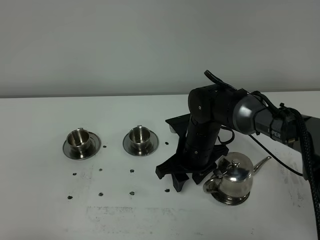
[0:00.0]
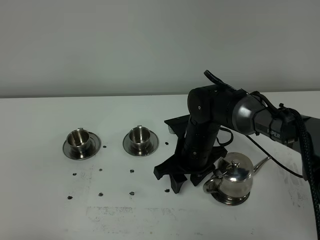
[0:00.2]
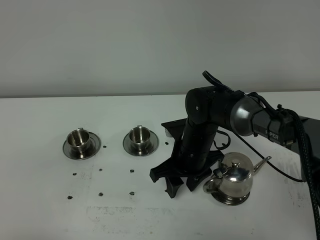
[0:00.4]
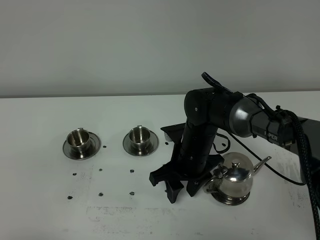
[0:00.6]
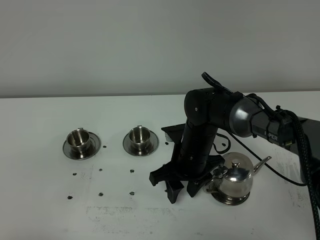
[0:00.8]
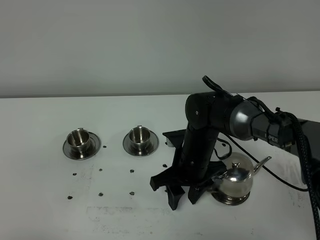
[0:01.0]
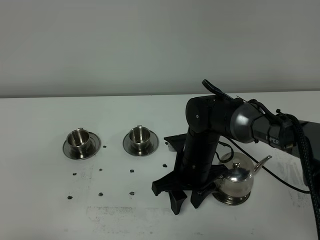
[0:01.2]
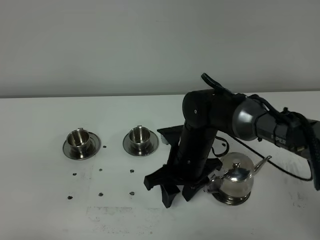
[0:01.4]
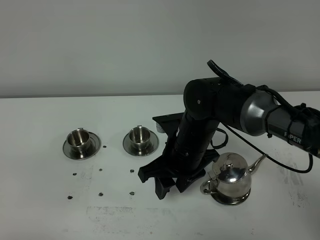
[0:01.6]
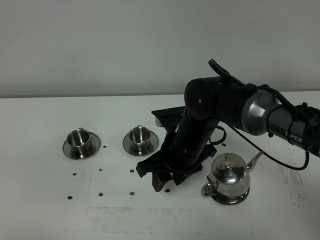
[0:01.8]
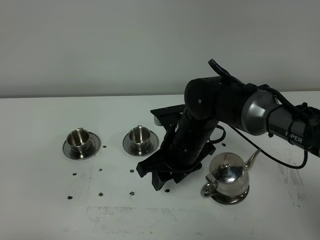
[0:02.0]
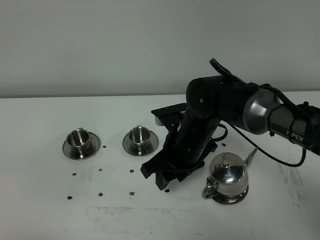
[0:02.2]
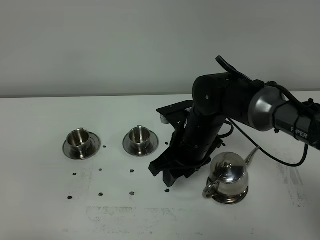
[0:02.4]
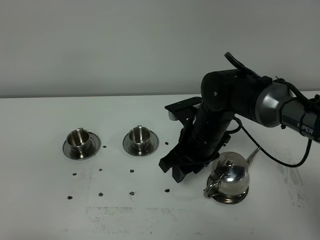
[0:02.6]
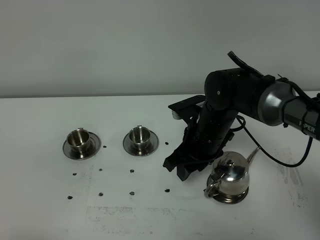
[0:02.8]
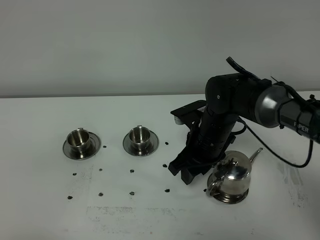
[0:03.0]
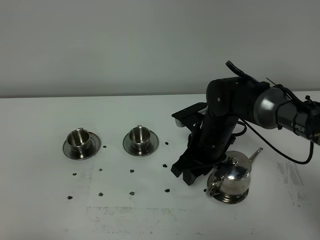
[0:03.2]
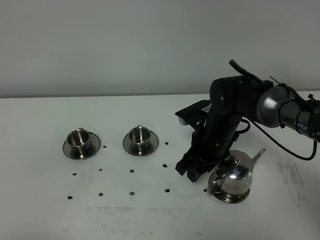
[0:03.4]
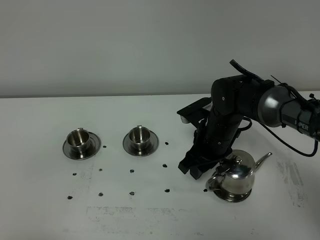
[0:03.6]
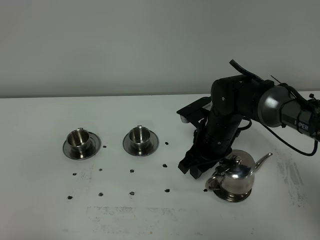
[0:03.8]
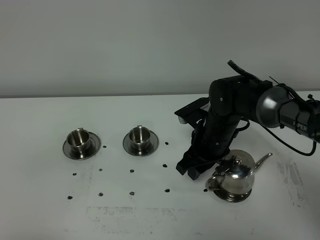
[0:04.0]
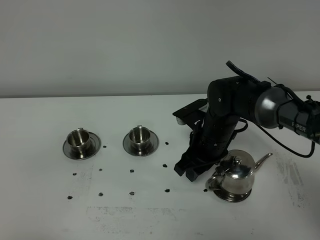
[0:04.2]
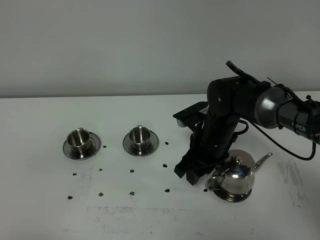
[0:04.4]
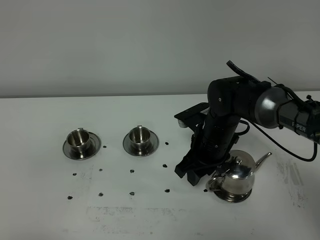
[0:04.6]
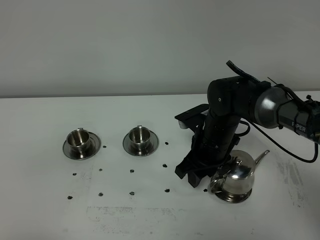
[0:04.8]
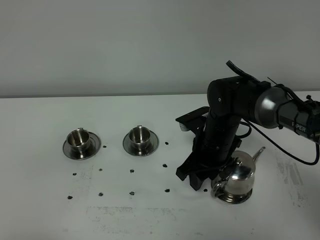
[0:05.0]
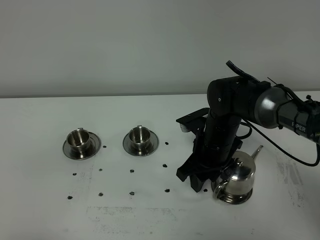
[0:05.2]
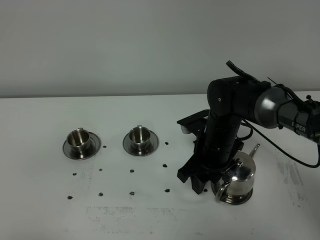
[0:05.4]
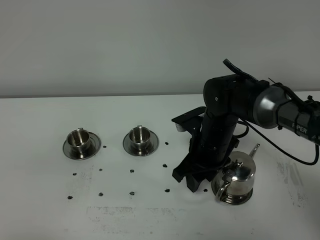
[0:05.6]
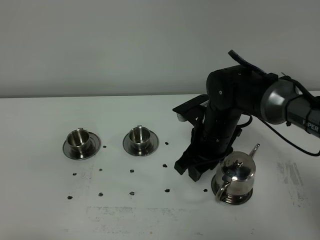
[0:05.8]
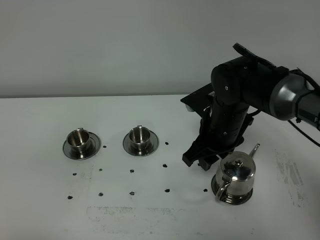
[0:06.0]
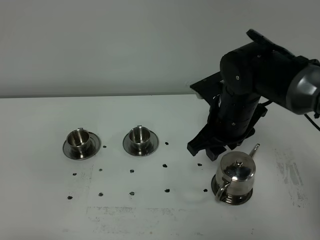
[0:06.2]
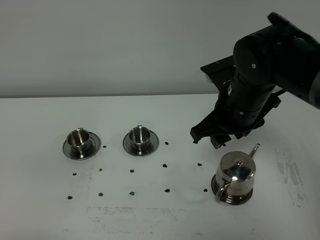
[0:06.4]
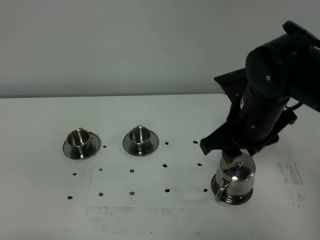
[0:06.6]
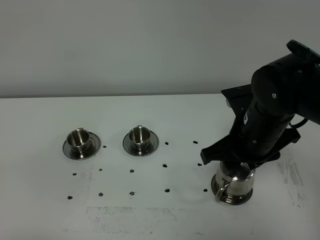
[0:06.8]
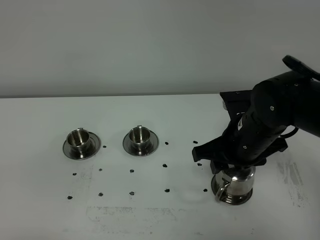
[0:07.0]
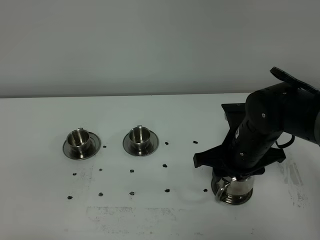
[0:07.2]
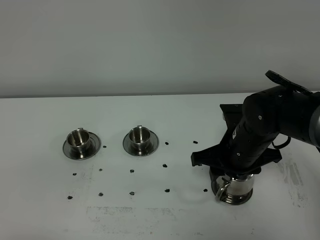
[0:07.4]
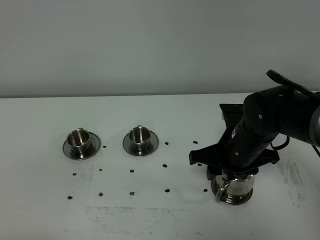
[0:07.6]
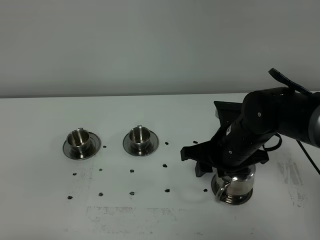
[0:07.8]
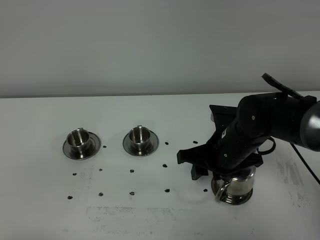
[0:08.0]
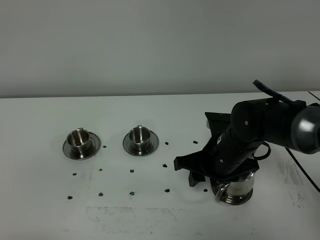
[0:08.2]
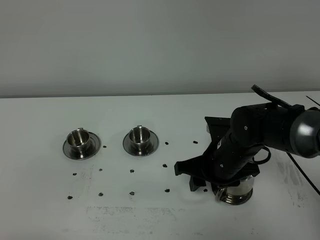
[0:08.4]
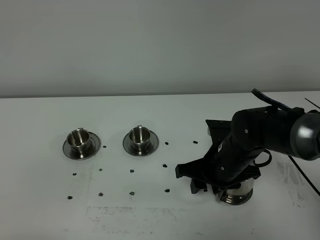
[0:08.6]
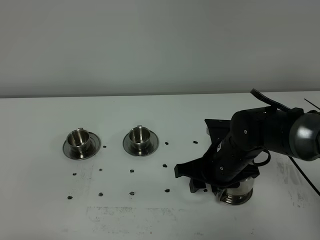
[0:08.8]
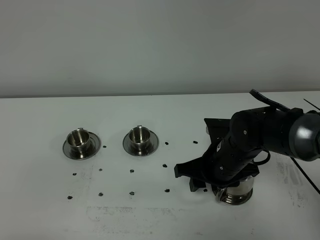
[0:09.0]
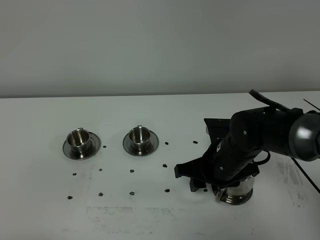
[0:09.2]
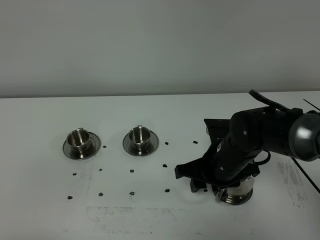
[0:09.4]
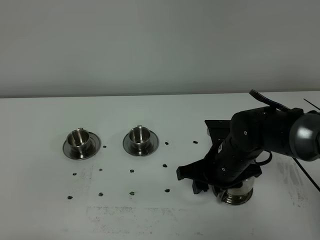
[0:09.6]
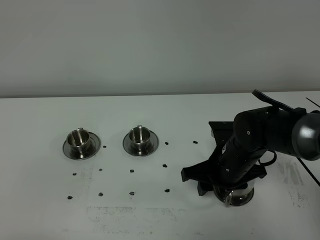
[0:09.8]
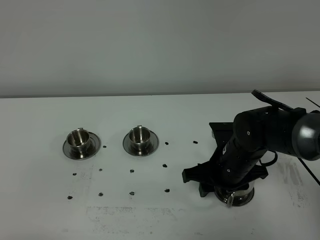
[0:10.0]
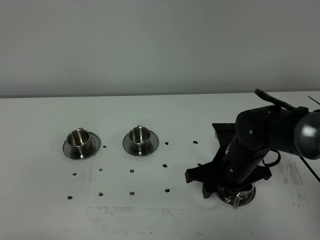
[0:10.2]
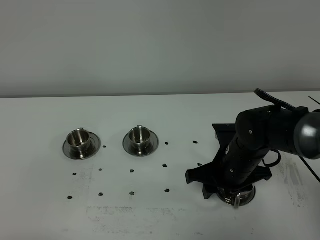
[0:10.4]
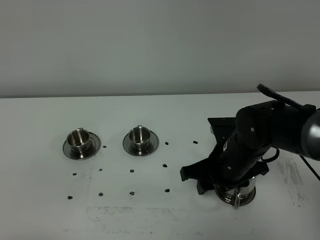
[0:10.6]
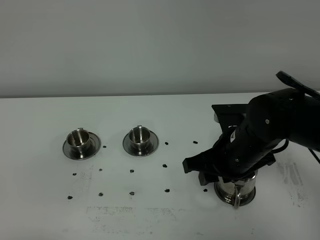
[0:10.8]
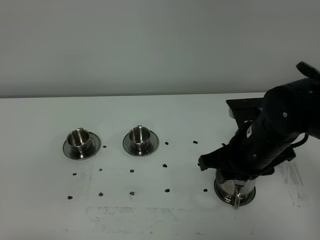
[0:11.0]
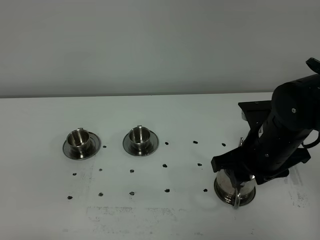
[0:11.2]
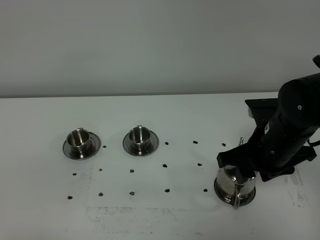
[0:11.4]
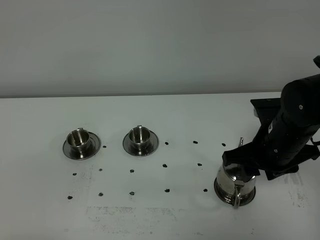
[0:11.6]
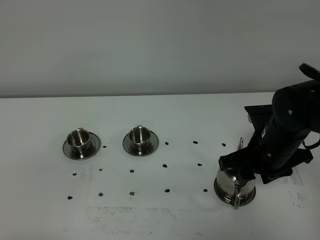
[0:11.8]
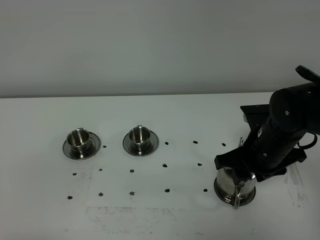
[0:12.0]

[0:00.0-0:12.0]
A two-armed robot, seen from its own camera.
Task of the whole recording: grasp the stainless steel teapot and pour the tea into the two stainless steel teacups one by one, put the stainless steel teapot back in its original place.
0:00.0 to 0:01.6: The right gripper changes place by approximately 5 cm.
0:01.6 to 0:03.0: The right gripper moves approximately 5 cm.
0:03.0 to 0:04.4: The grippers stay close to where they were, moving slightly.
0:04.4 to 0:06.0: The right gripper moves upward, some 5 cm.
0:06.0 to 0:07.6: The right gripper moves roughly 5 cm upward and comes back.
0:07.6 to 0:10.4: The grippers stay close to where they were, moving slightly.
0:10.4 to 0:12.0: The right gripper moves approximately 5 cm.

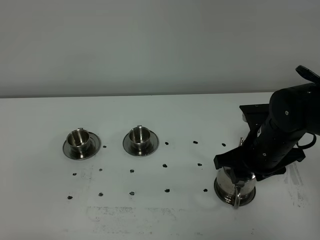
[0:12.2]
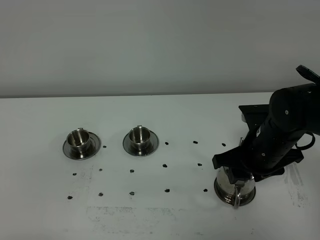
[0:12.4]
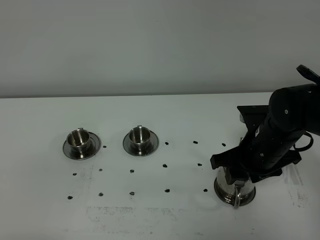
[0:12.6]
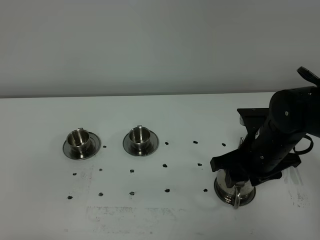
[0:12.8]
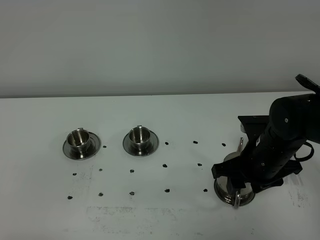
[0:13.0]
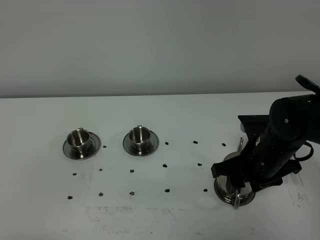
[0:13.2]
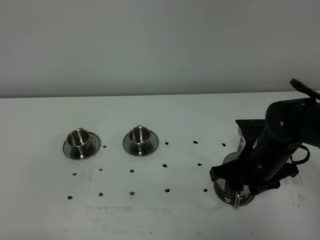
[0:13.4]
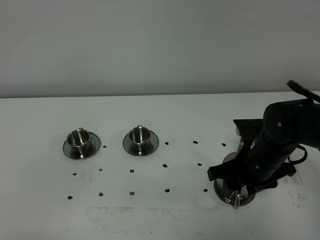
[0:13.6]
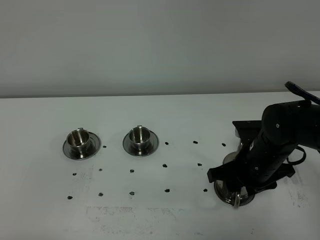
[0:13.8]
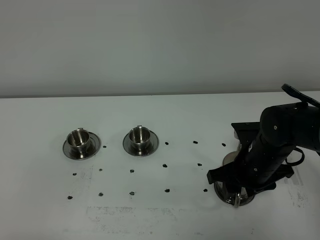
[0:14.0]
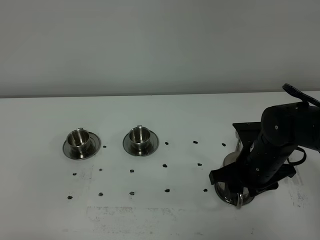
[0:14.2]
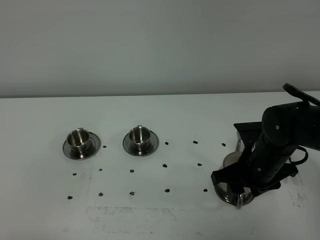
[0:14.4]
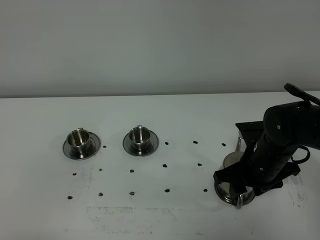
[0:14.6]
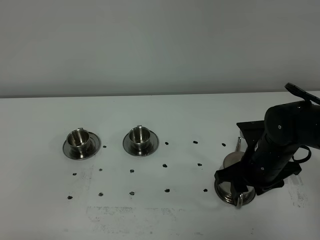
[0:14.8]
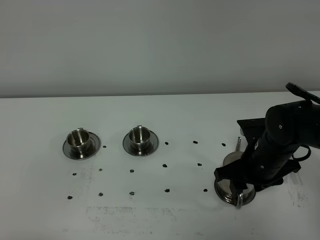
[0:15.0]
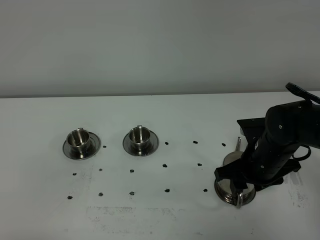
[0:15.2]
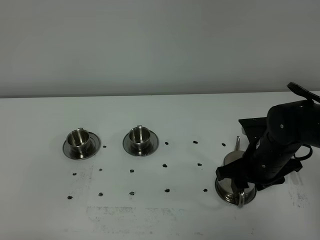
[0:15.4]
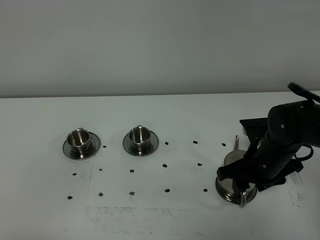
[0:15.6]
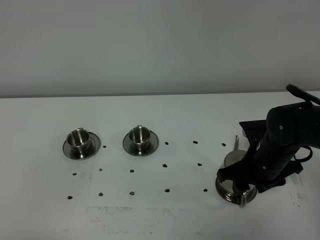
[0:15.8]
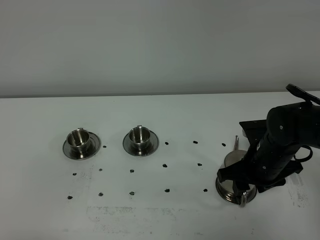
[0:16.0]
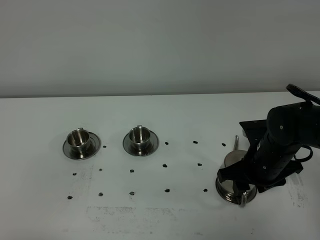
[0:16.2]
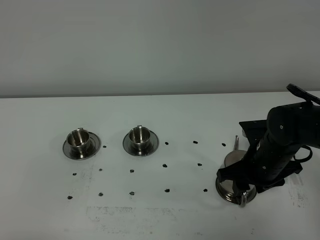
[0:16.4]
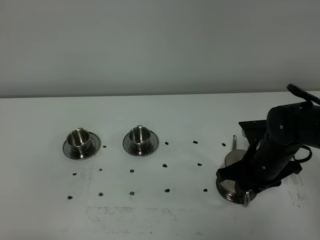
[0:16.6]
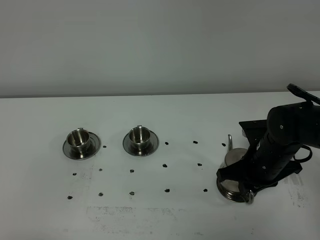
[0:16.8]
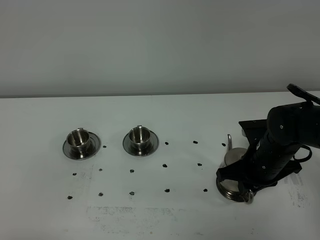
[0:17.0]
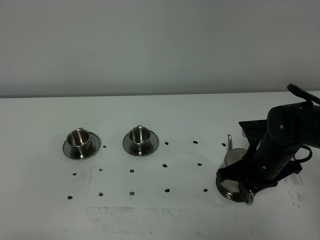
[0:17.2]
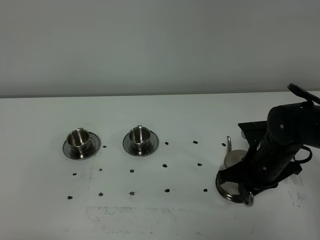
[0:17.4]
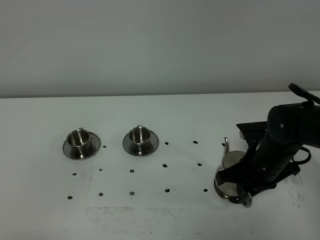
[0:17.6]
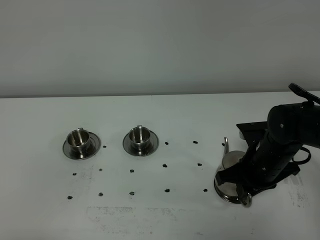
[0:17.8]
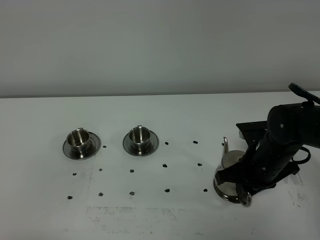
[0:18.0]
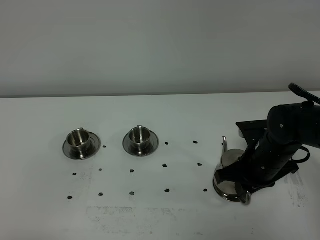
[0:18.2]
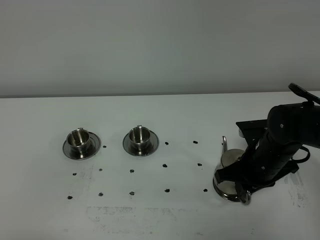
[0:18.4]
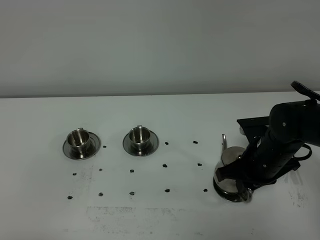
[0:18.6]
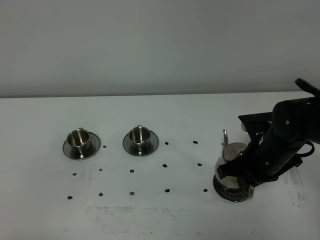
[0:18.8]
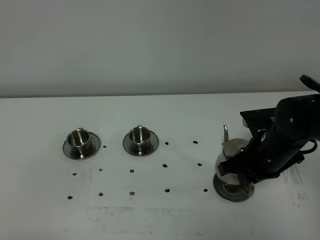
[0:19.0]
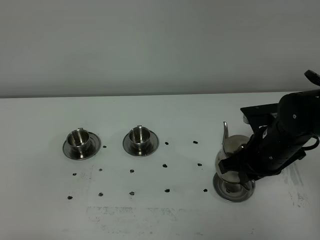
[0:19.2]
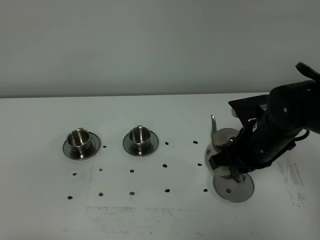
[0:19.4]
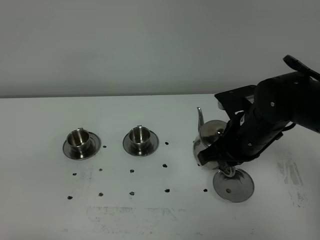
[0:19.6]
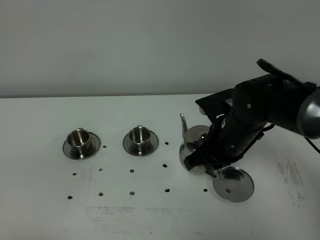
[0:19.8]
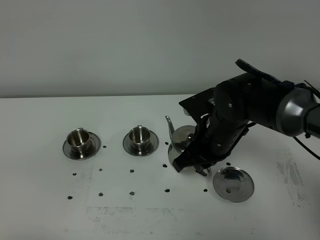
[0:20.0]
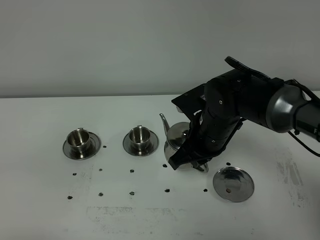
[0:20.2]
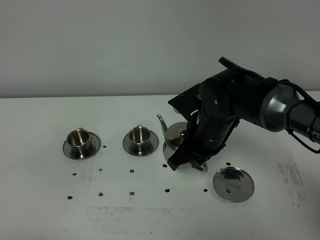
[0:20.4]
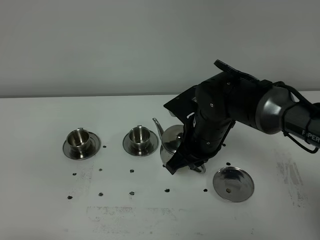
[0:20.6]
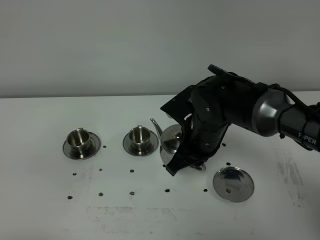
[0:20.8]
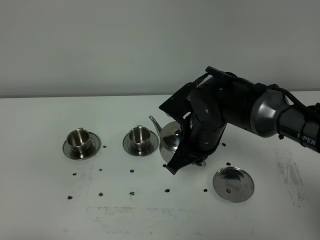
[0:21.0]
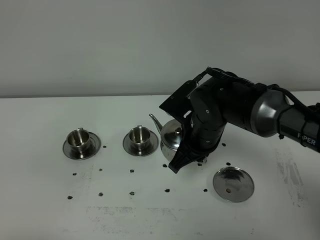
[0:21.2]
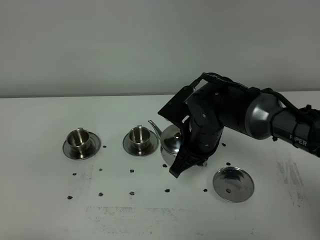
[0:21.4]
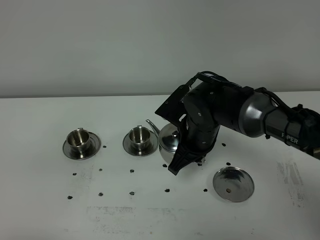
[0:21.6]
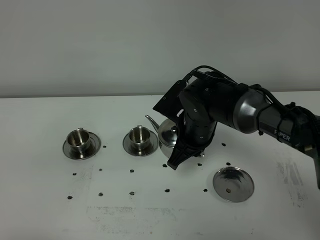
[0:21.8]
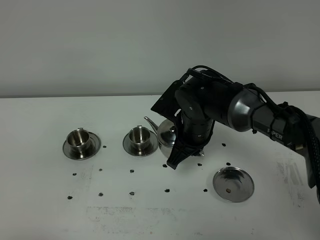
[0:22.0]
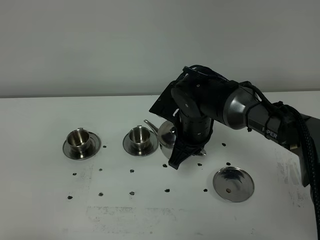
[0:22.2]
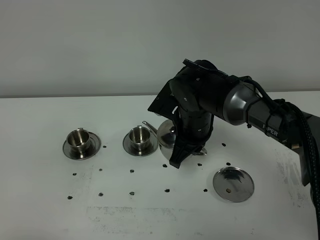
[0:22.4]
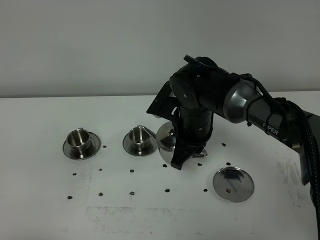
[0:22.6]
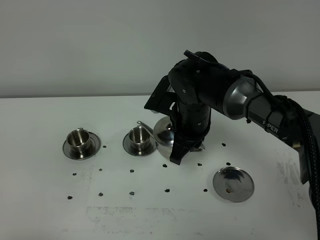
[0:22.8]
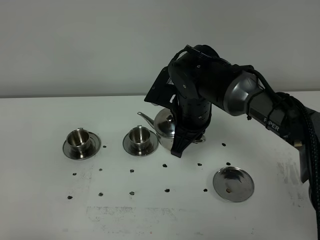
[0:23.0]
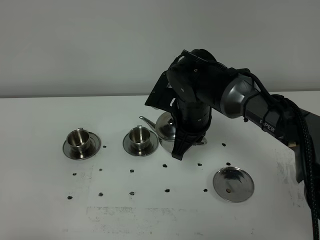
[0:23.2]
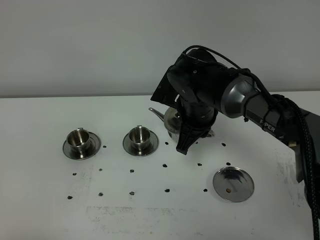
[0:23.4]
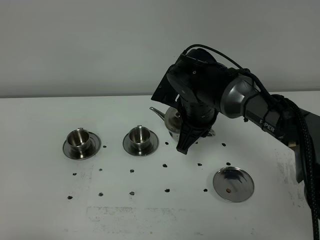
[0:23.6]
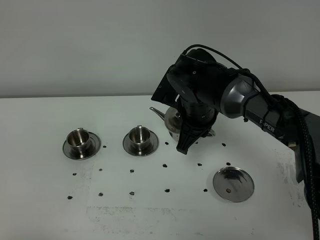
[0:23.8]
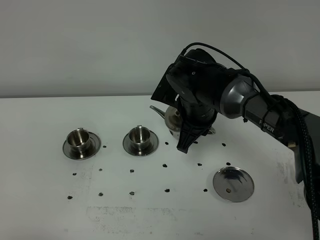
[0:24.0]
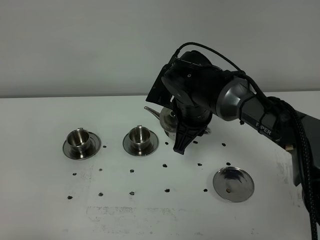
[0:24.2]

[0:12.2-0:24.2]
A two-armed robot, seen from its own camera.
Task of the whole recording: grasp the stainless steel teapot and pour the tea into the two stainless steel teacups one by one, put the stainless steel teapot back in its original place.
Step, 0:12.2 to 0:19.0: Pick up the teapot with the right gripper.
0:12.2 to 0:15.2: The grippers make only small movements.
0:15.2 to 0:16.6: The right gripper closes up.
0:16.6 to 0:18.2: The right gripper closes its fingers.
0:18.2 to 0:19.8: The right gripper is displaced to the left and upward by about 10 cm.
0:21.2 to 0:22.6: There are only small adjustments of the grippers.
0:22.6 to 0:24.2: There are only small adjustments of the grippers.
